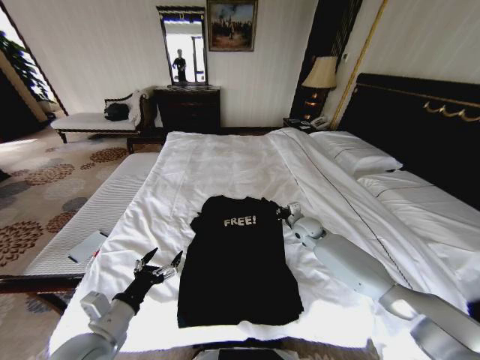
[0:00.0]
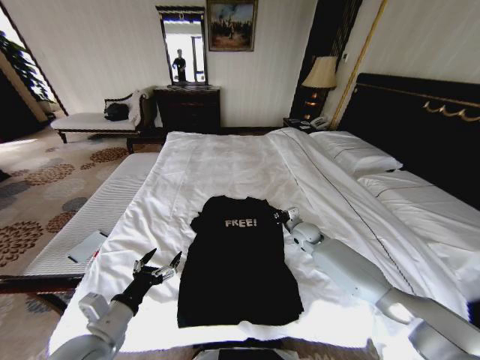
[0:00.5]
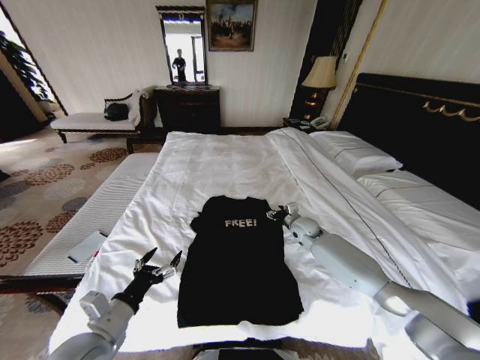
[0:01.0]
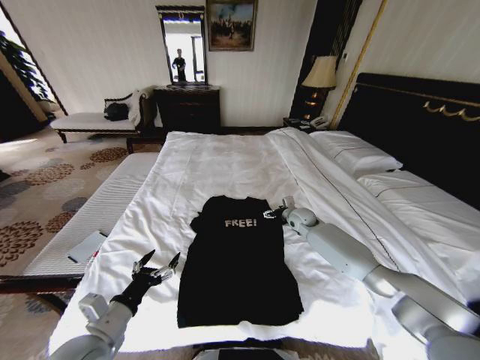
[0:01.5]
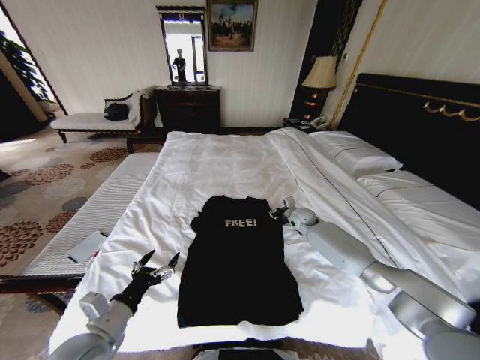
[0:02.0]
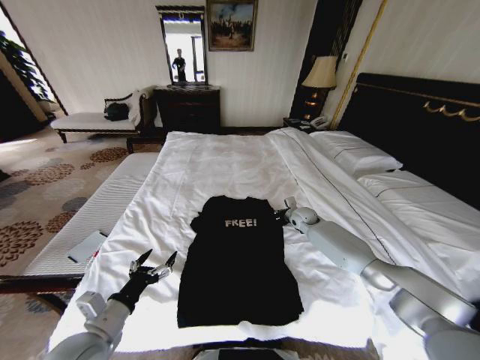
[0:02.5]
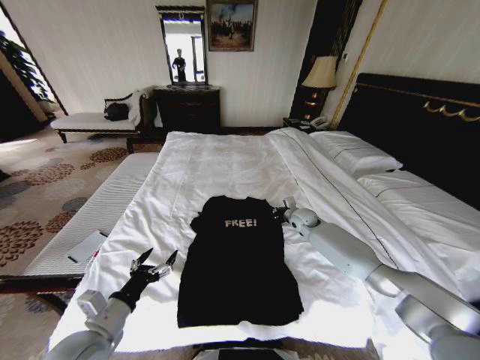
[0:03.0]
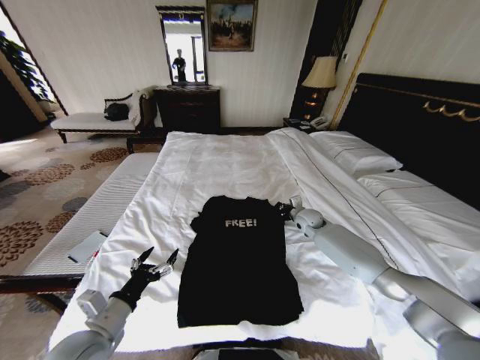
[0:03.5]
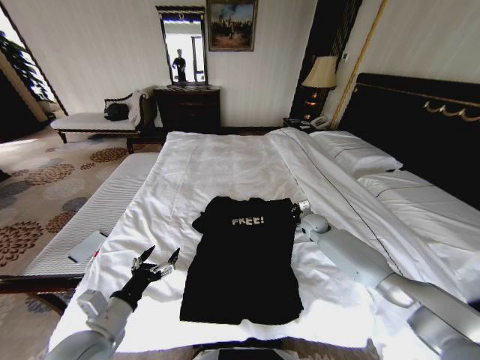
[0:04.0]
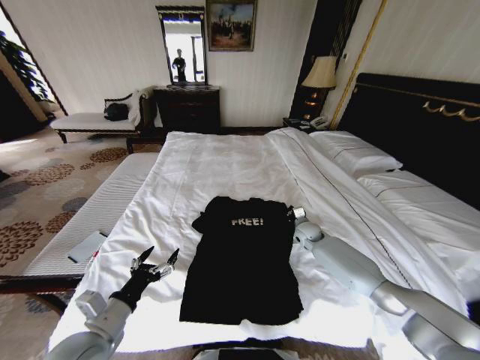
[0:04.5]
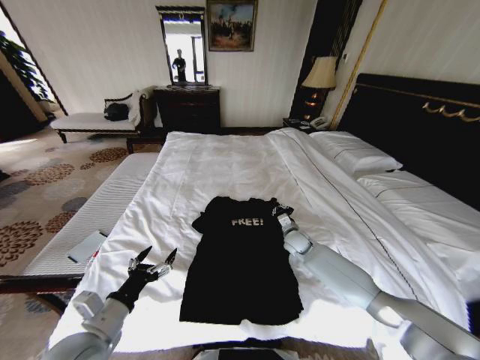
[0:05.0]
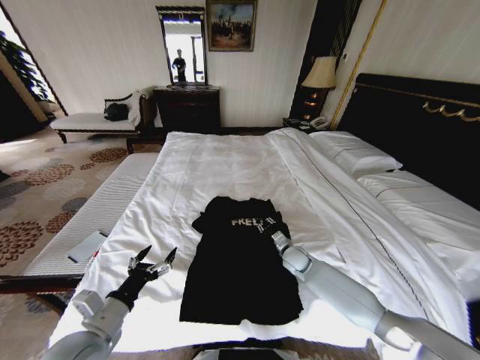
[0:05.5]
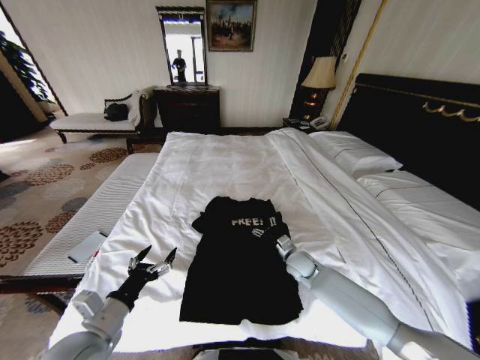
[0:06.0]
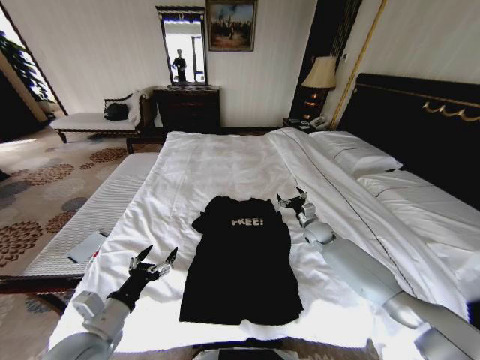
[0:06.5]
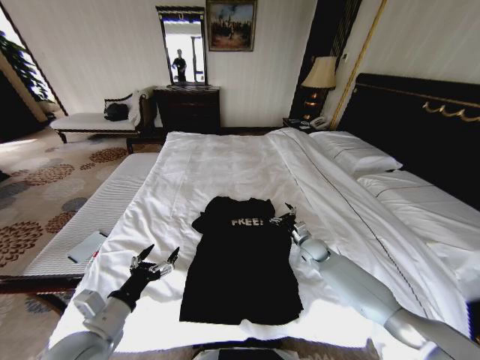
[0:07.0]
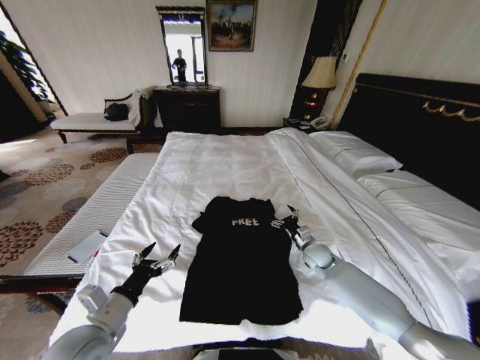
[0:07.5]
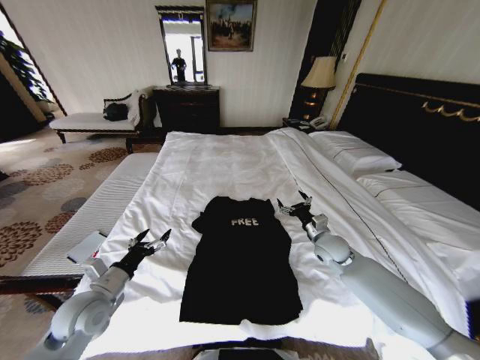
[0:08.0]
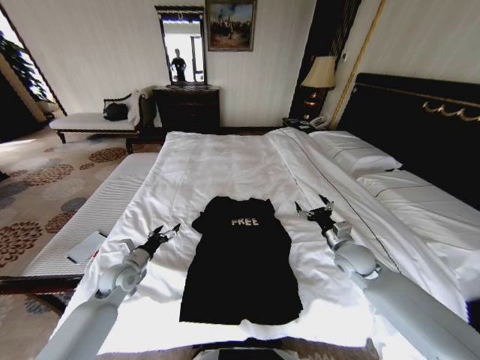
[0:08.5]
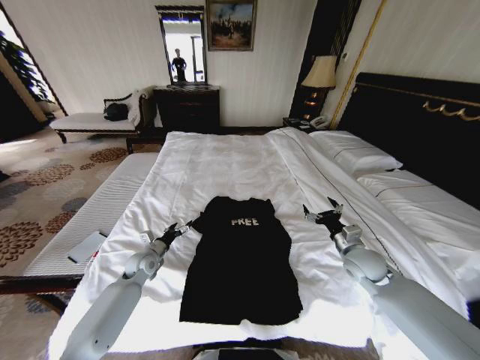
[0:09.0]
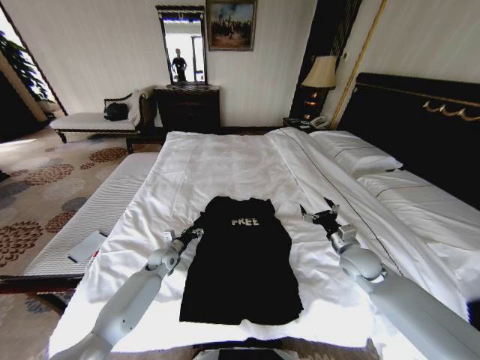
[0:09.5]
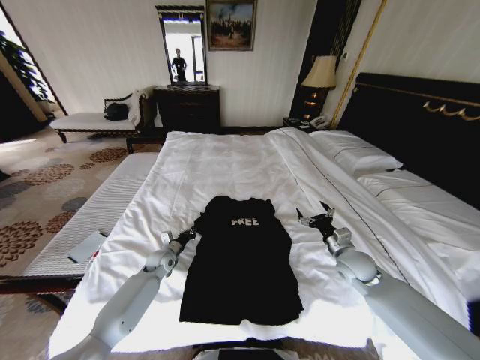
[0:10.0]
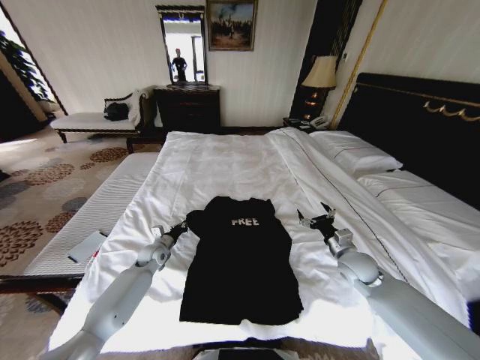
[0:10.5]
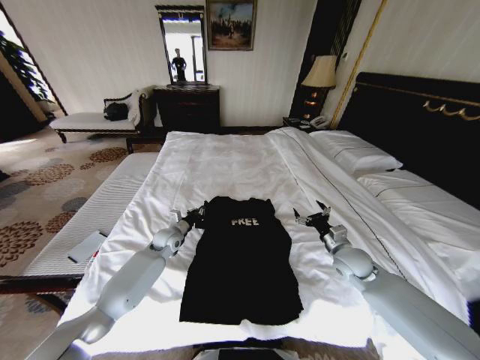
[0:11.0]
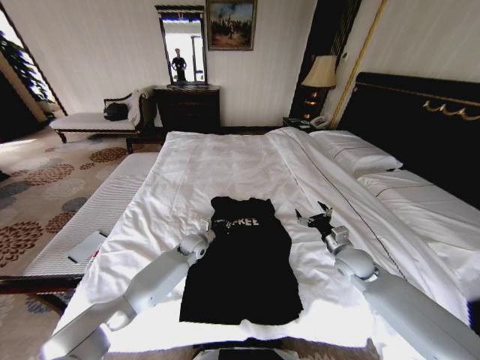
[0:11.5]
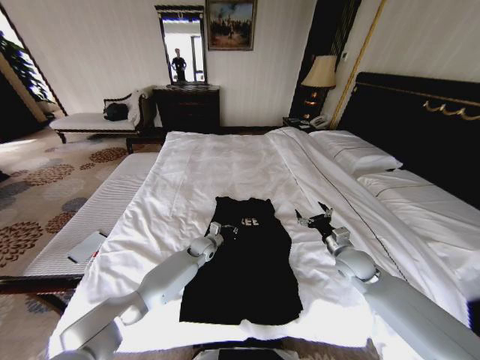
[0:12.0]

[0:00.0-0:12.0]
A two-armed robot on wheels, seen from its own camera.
Task of the whole recording: Fold the clothes on the bed.
0:00.0 to 0:02.0: The right gripper heads forward, covering about 5 cm, and opens its fingers.
0:02.0 to 0:04.0: The right gripper closes up.
0:04.0 to 0:06.0: The right gripper moves backward, to the left and downward, about 15 cm, and opens.
0:06.0 to 0:08.0: The left gripper travels forward by approximately 10 cm. Meanwhile the right gripper shifts approximately 10 cm upward and to the right, and goes forward and returns, some 10 cm each way.
0:08.0 to 0:10.0: The right gripper heads backward, covering approximately 5 cm; the left gripper moves forward and downward, about 25 cm, and closes up.
0:10.0 to 0:12.0: The left gripper goes about 15 cm to the right.

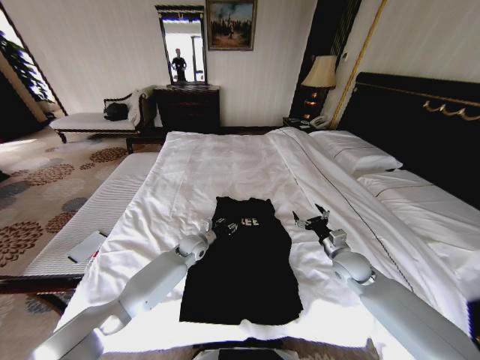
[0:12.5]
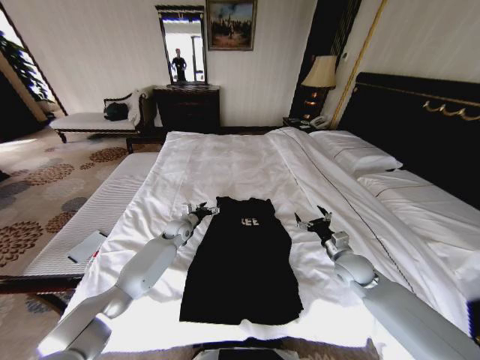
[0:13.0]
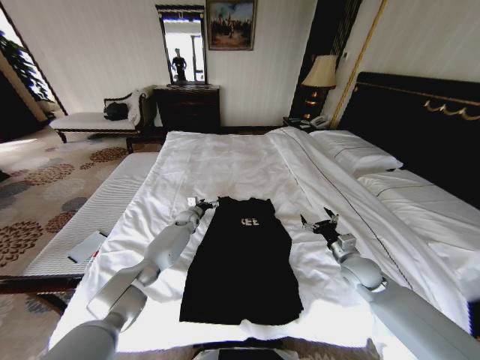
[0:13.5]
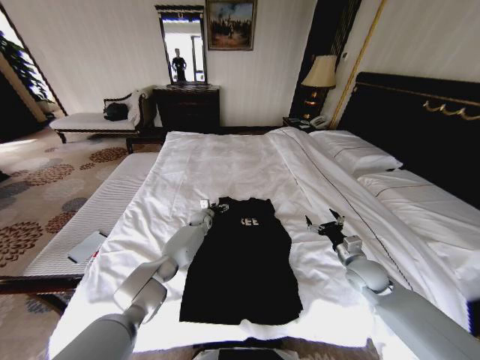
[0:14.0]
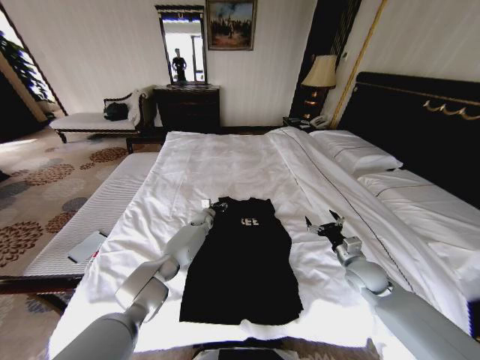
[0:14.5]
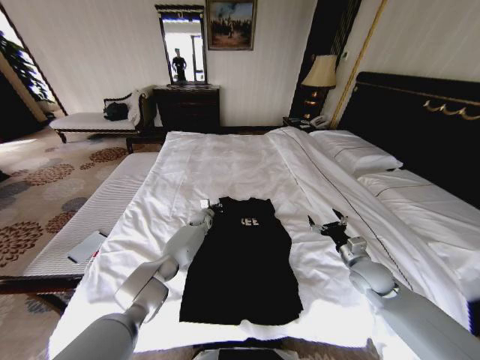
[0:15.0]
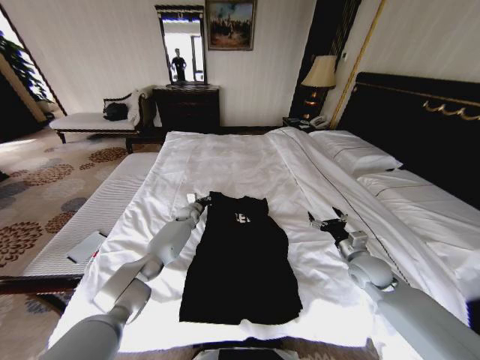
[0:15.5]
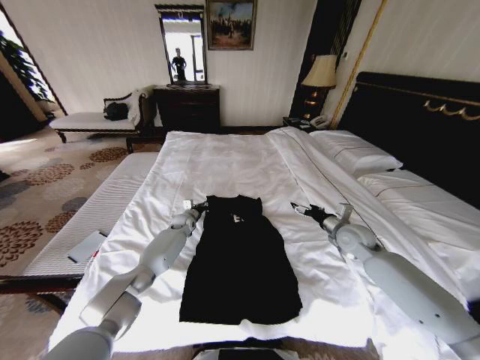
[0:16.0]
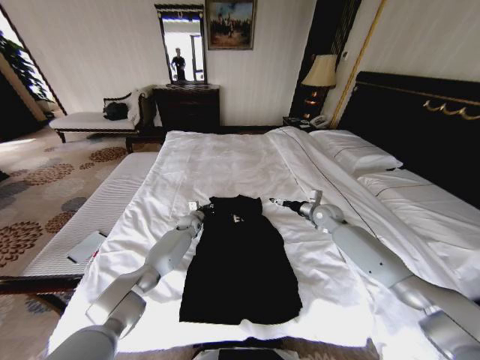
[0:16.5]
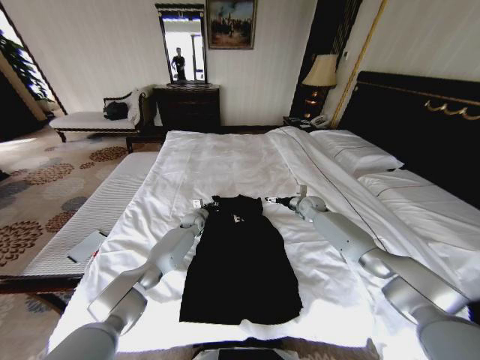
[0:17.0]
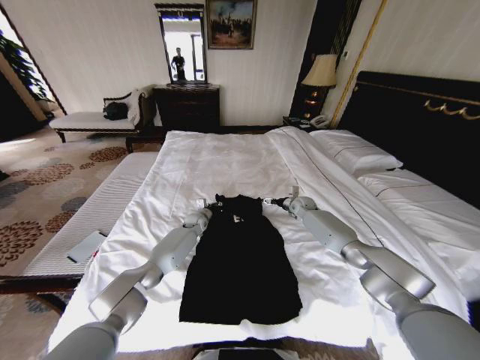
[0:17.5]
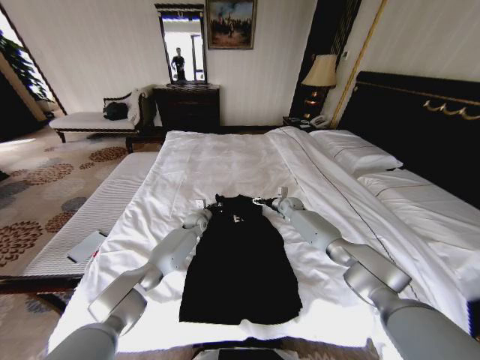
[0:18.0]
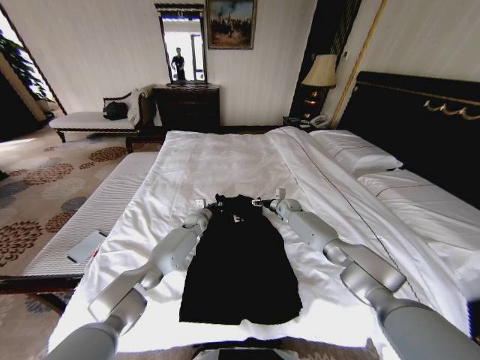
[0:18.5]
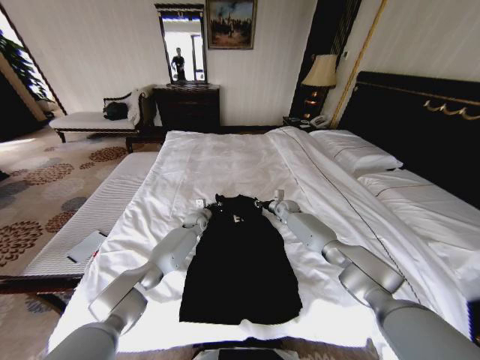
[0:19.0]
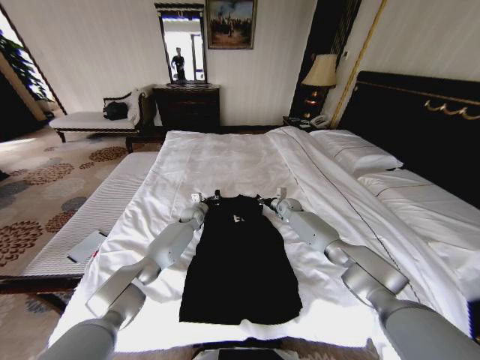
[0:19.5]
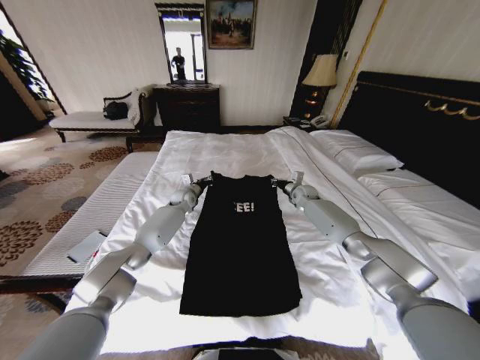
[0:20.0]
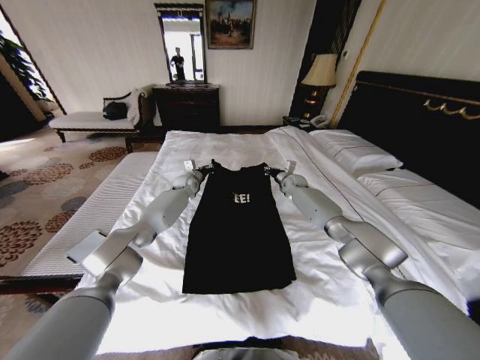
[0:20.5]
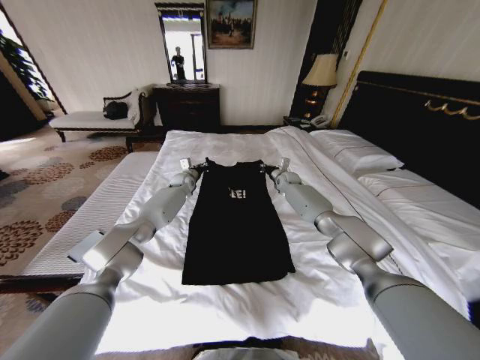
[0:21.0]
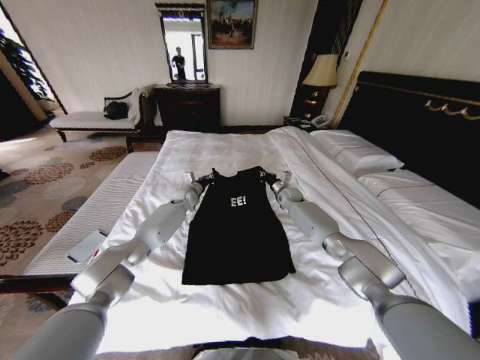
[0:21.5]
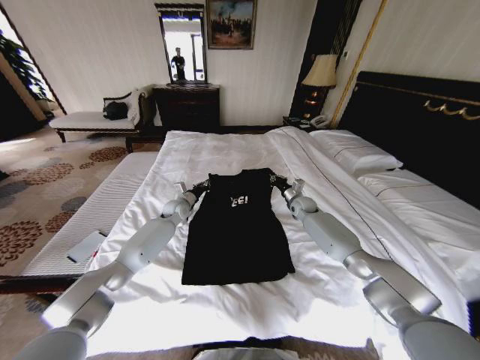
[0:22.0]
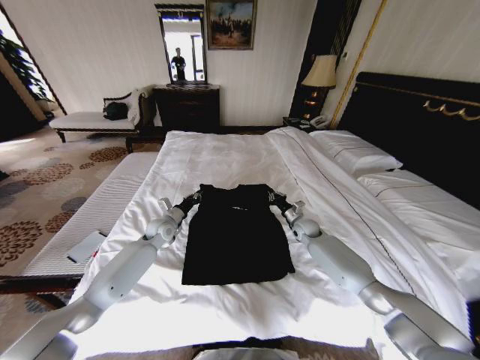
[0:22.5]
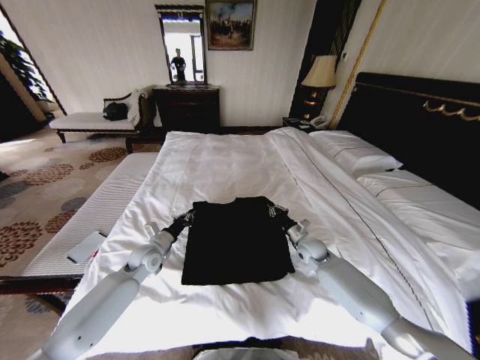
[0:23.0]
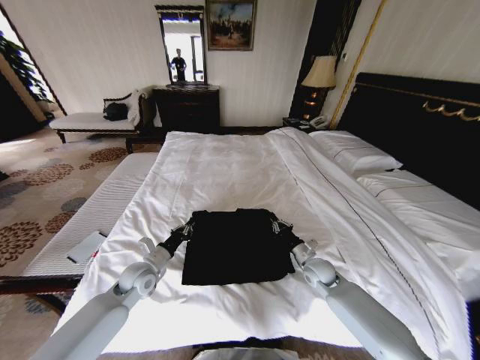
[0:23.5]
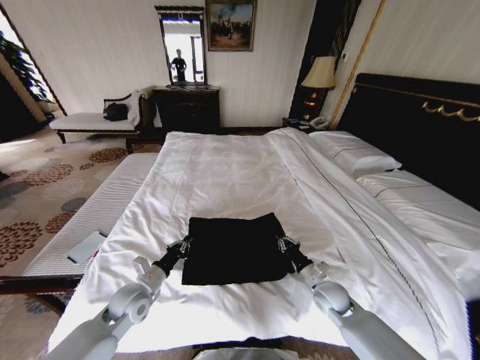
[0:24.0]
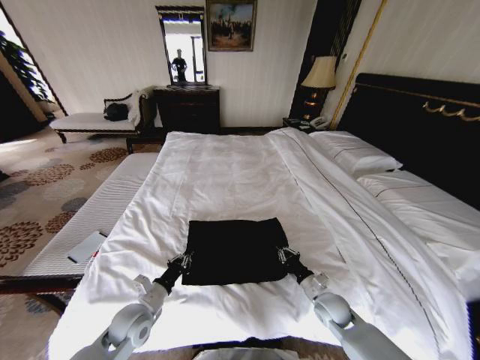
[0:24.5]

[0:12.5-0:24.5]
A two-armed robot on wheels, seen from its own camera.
Task of the whole recording: Fold the clothes on the bed.
0:12.5 to 0:14.5: The left gripper moves forward, about 15 cm, and opens, then closes once more.
0:14.5 to 0:16.5: The left gripper is displaced to the left by roughly 5 cm, and closes up; the right gripper moves forward, roughly 20 cm.
0:16.5 to 0:18.5: The right gripper is displaced forward, to the left and downward by roughly 15 cm.
0:18.5 to 0:20.5: The right gripper goes roughly 10 cm upward, and closes up; the left gripper is displaced upward and forward by approximately 15 cm.
0:20.5 to 0:22.5: The right gripper travels backward and downward by roughly 20 cm. The left gripper is displaced backward by some 15 cm.
0:22.5 to 0:24.5: The grippers both shift backward by approximately 25 cm.

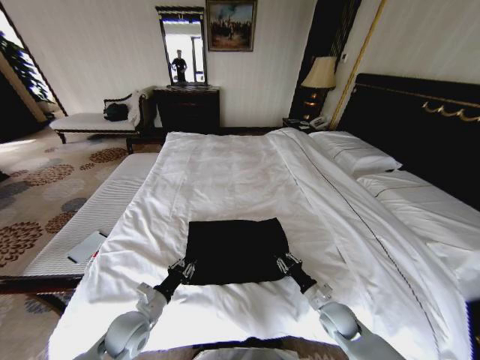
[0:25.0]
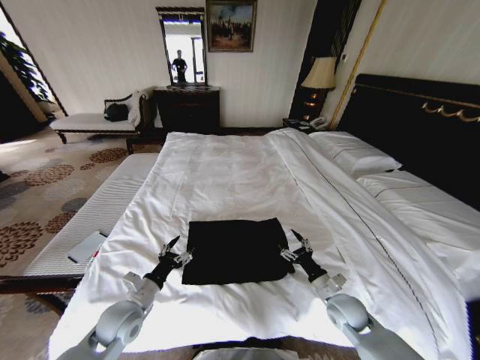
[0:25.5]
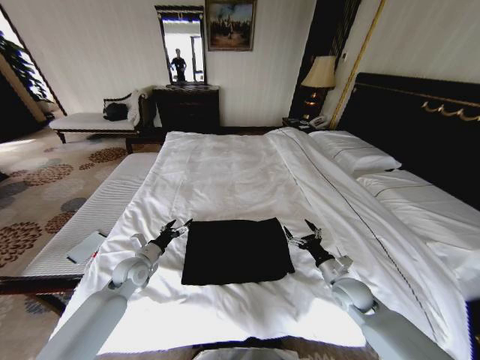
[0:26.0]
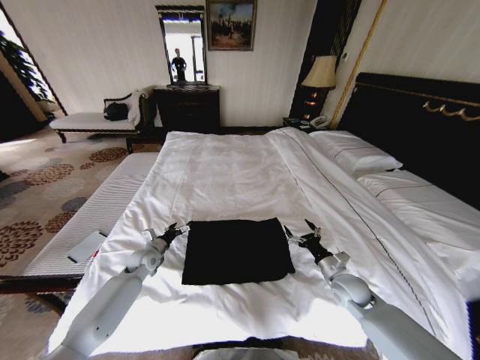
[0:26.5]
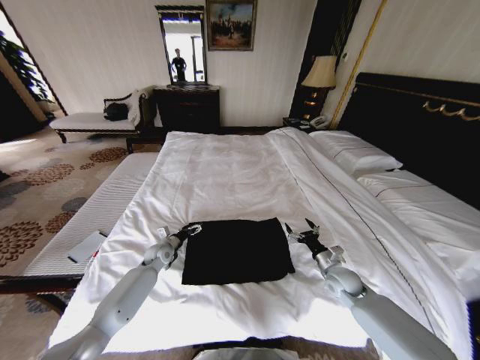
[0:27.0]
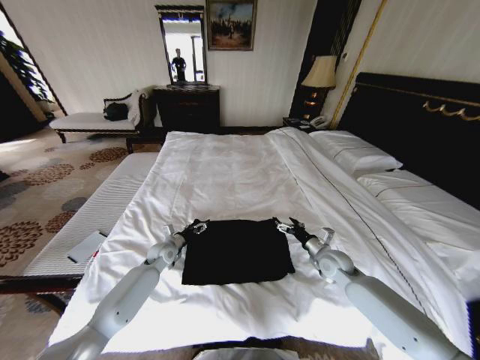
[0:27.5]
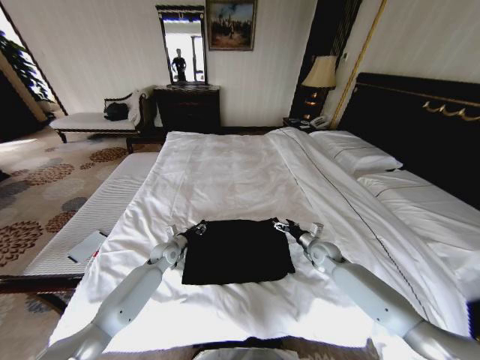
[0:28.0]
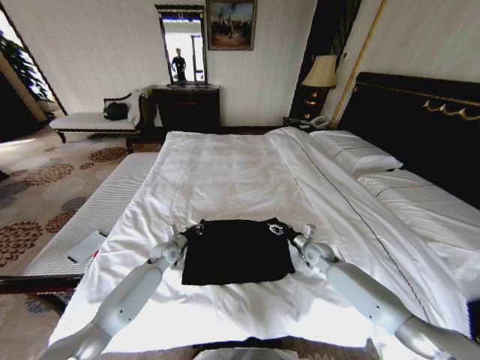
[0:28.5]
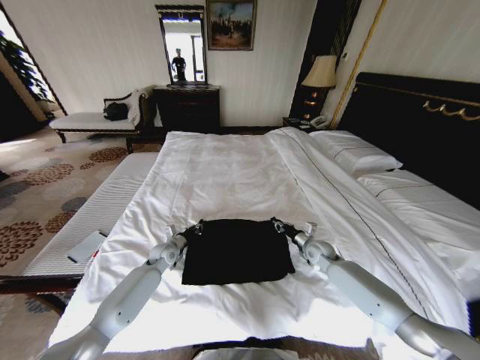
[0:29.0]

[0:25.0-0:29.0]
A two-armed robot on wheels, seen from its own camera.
Task of the whole recording: Fold the clothes on the bed.
0:25.0 to 0:27.0: The right gripper travels forward and upward by some 10 cm, and opens its fingers, while the left gripper is displaced forward by approximately 25 cm, and opens.
0:27.0 to 0:29.0: The left gripper closes. The right gripper moves forward, about 10 cm, and closes.
